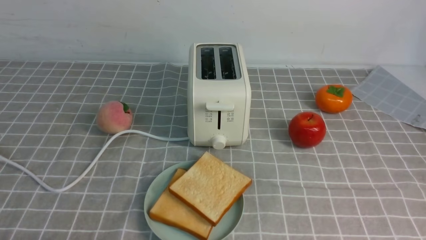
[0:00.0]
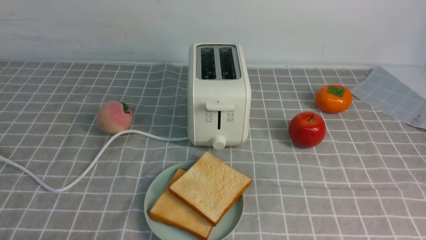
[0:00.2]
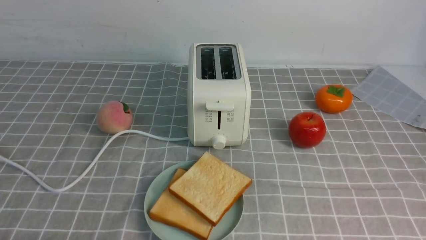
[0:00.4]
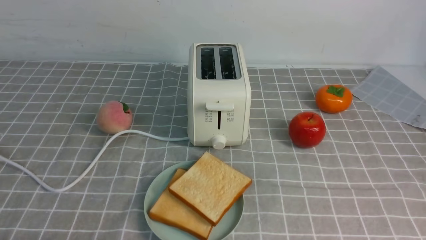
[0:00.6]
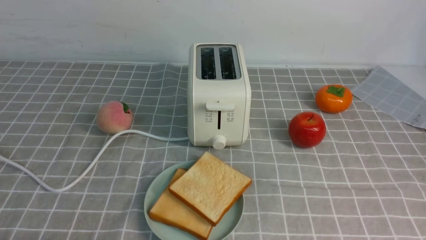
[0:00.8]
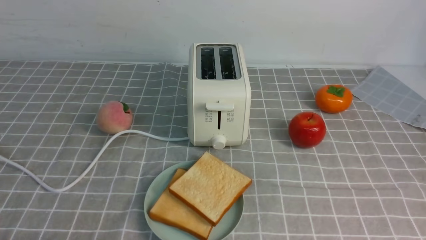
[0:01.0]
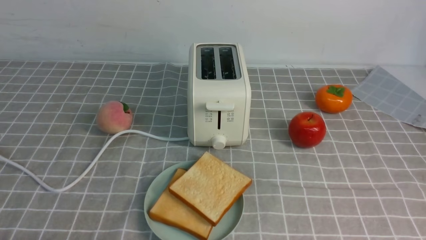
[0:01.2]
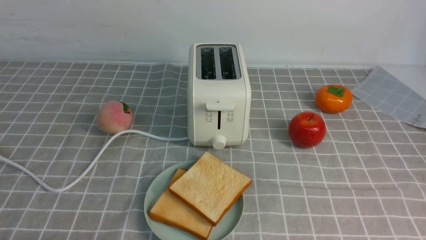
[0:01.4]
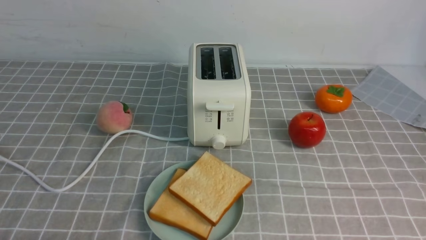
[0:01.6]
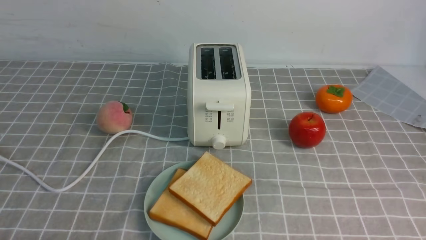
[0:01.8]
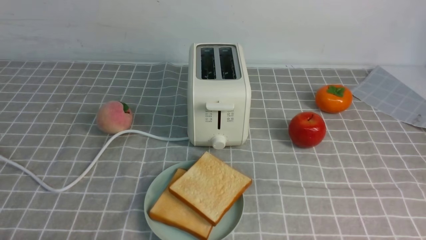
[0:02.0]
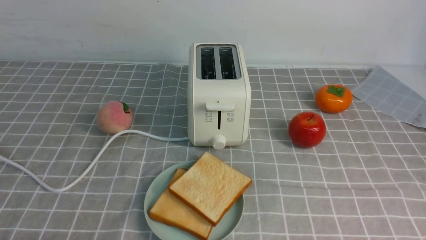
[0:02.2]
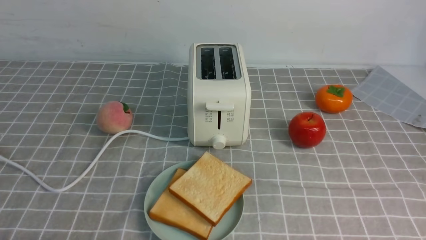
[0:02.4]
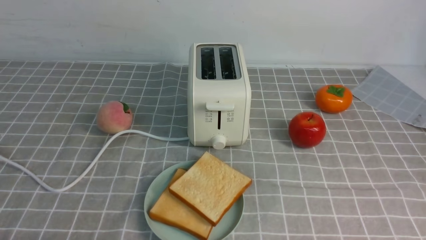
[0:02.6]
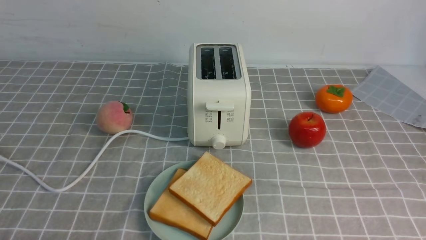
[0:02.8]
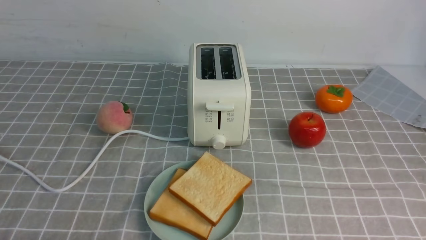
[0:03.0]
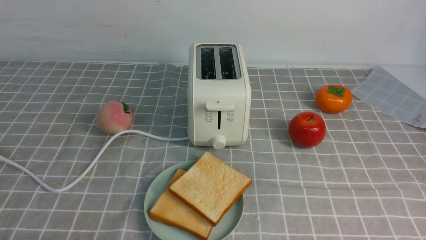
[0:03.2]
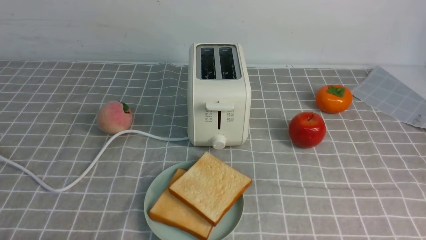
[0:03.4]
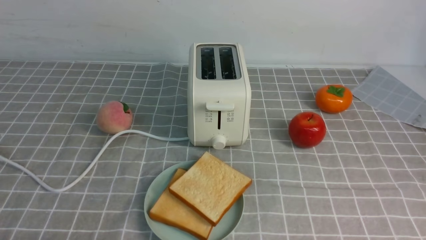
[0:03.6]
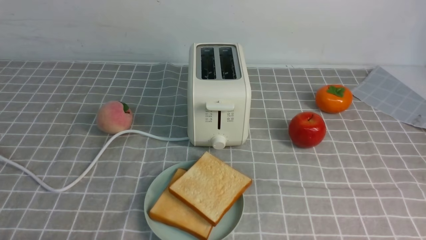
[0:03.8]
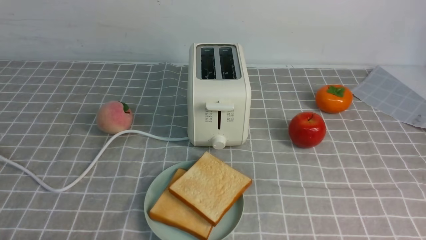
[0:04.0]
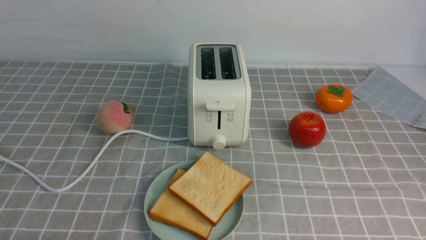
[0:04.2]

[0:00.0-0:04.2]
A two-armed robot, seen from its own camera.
Task of the whole recording: take toasted bread from bread machine on grey coffee table place on plate.
0:02.8 to 0:04.2: Both grippers stay put.
